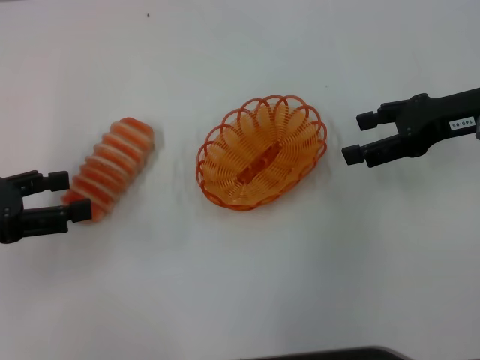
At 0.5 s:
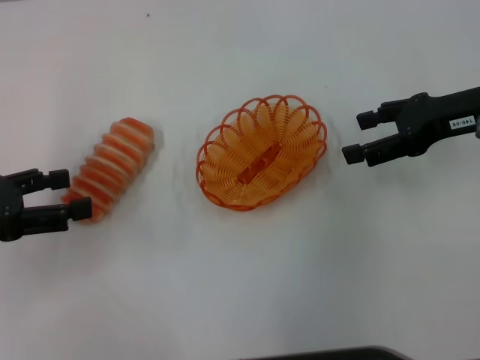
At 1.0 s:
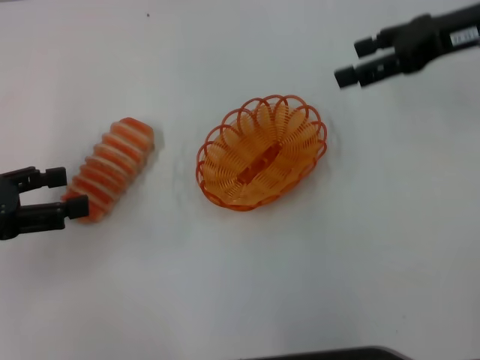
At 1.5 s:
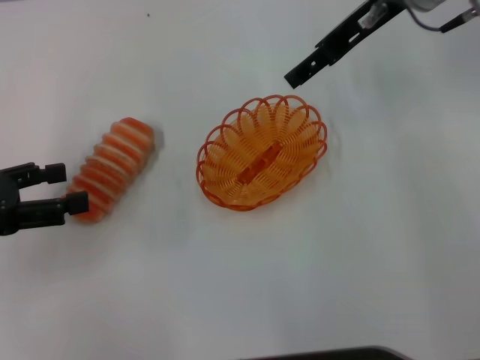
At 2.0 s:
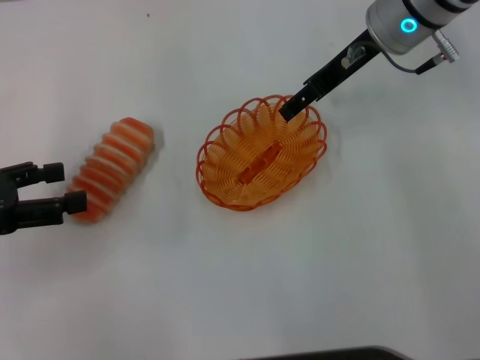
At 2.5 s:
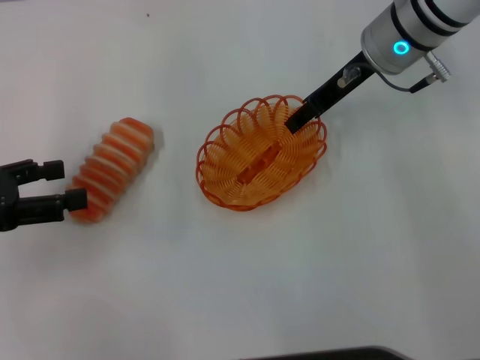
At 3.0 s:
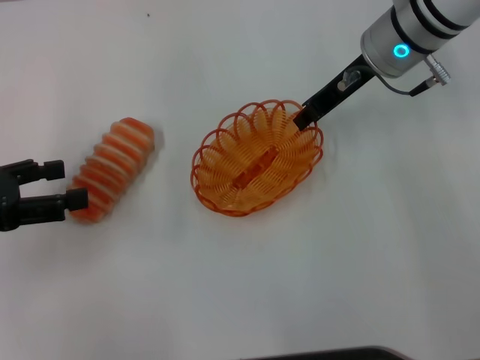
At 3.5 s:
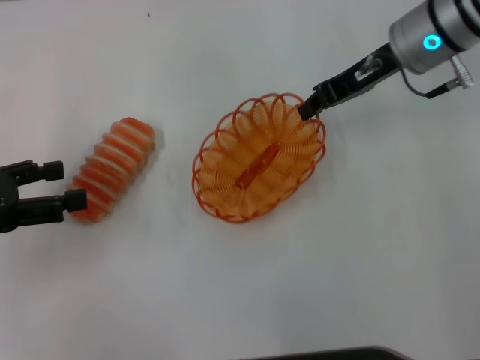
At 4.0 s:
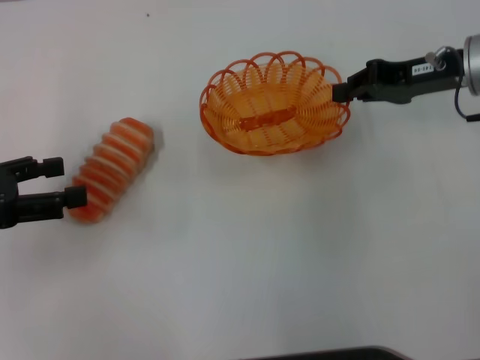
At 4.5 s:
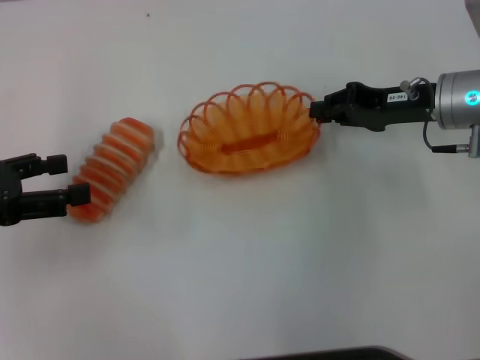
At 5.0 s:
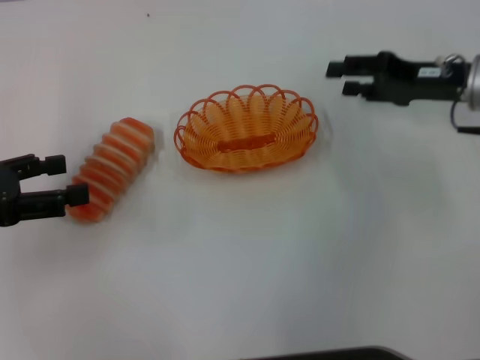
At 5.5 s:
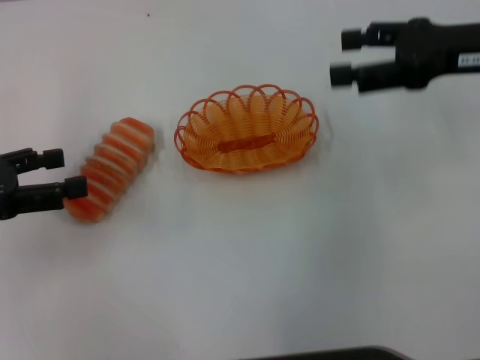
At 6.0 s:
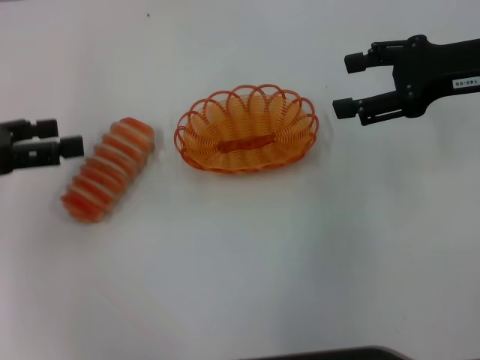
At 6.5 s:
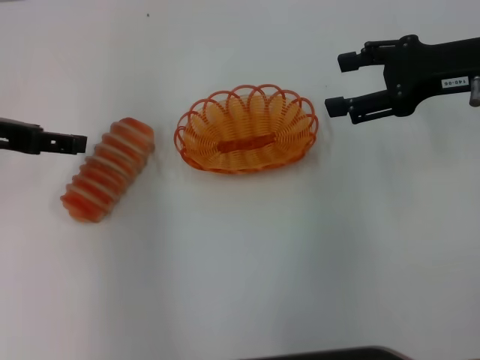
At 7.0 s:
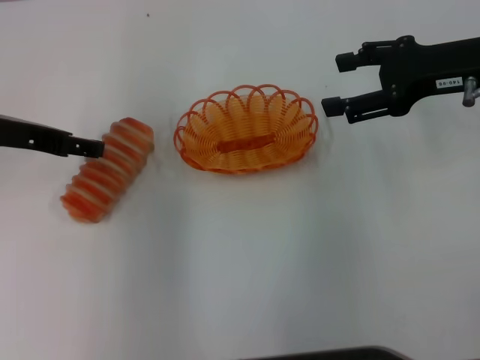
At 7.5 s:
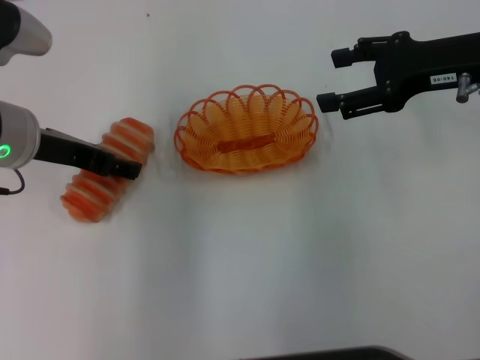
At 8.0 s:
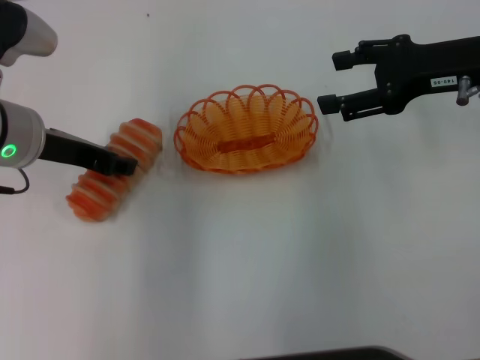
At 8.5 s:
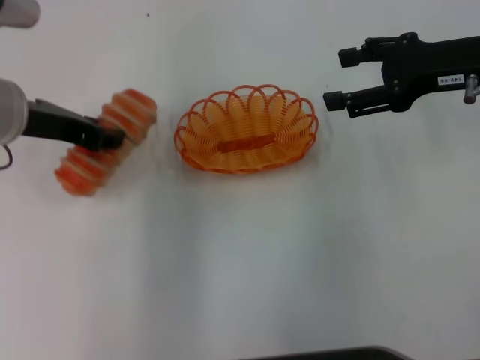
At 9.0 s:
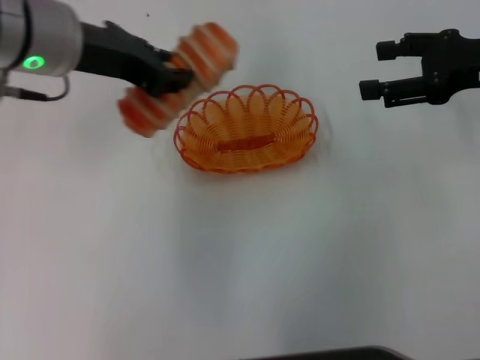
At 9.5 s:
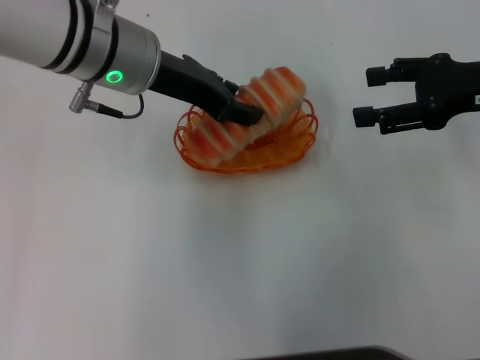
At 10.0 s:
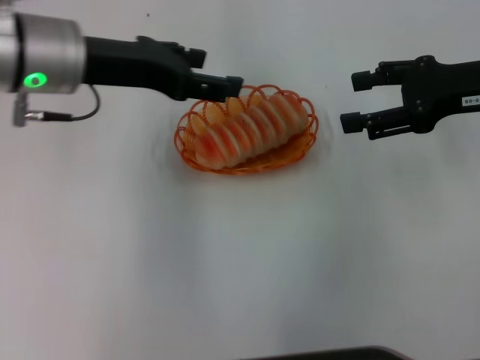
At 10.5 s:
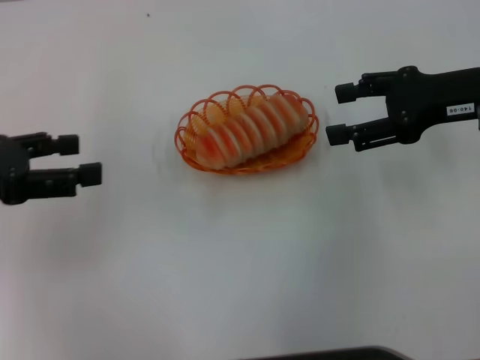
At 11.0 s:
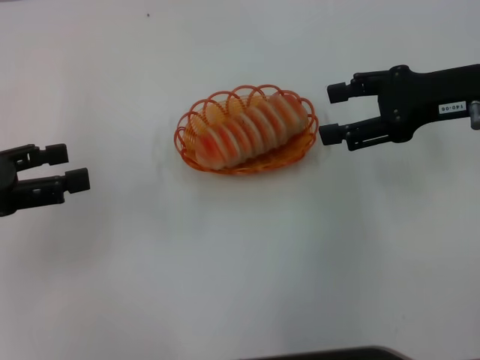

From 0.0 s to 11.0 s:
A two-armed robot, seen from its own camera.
Step, from 0.0 s to 4.0 s: Pick up the basket with the right gripper.
Step, from 4.5 s to 5.0 s: Place the basket in the center of view with the right gripper.
Step, from 5.5 s to 8.5 s: Pick up the long bread with the left gripper.
Step, from 9.0 s to 9.5 s: Place the long bread into the basket with the left gripper.
From 0.0 s to 2.0 s: The right gripper heads to the left and forward, covering some 15 cm.
From 2.0 s to 3.5 s: The right gripper closes up.
From 3.5 s to 5.5 s: The right gripper shifts roughly 10 cm to the right and backward, moves approximately 5 cm downward and comes back, and opens its fingers.
From 5.5 s to 7.5 s: The left gripper travels to the right and forward by about 15 cm.
From 7.5 s to 9.0 s: The left gripper is displaced upward and to the right by approximately 10 cm, and closes its fingers.
From 9.0 s to 11.0 s: The left gripper is displaced to the left, backward and downward by approximately 20 cm, and opens up.
